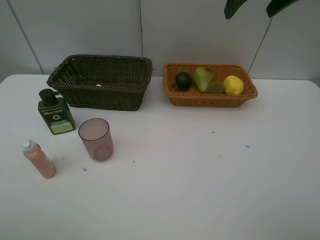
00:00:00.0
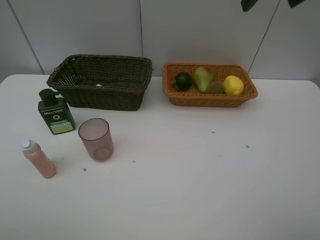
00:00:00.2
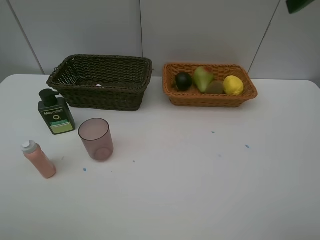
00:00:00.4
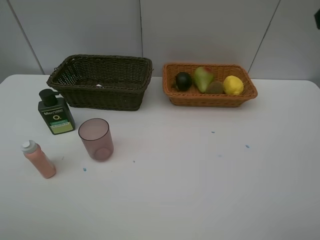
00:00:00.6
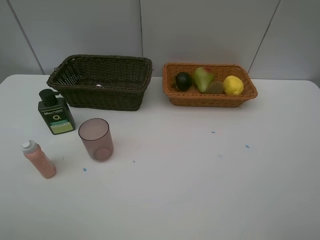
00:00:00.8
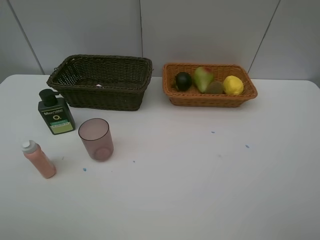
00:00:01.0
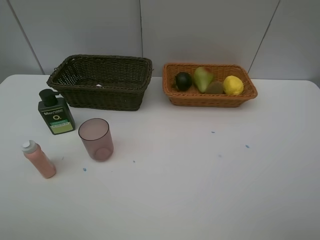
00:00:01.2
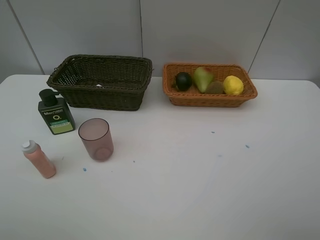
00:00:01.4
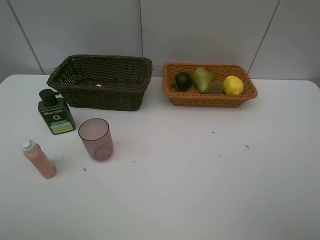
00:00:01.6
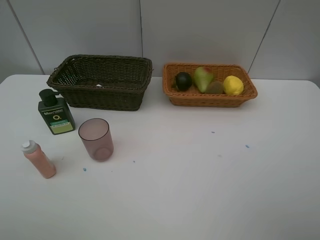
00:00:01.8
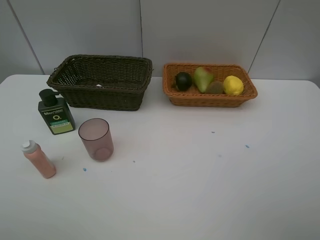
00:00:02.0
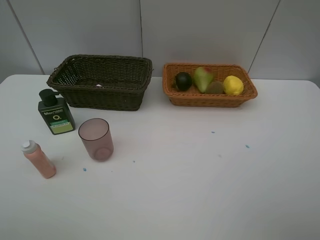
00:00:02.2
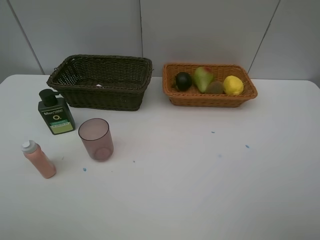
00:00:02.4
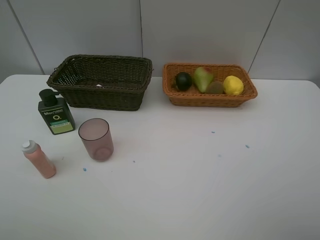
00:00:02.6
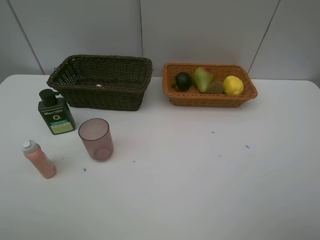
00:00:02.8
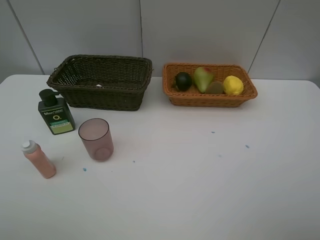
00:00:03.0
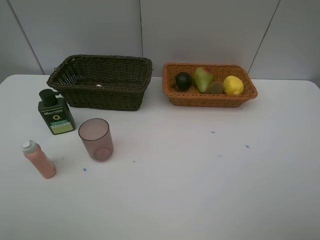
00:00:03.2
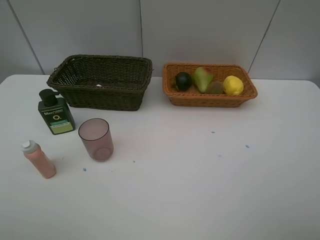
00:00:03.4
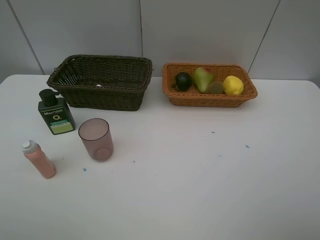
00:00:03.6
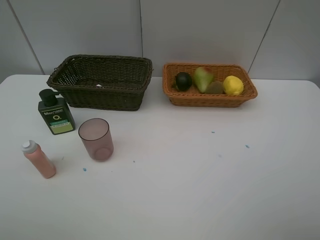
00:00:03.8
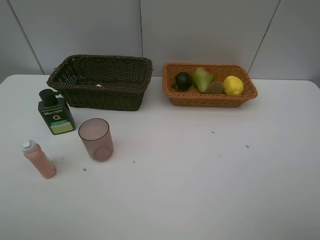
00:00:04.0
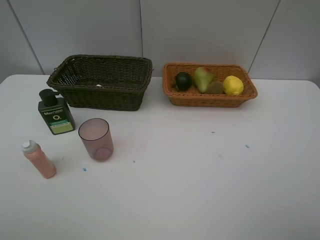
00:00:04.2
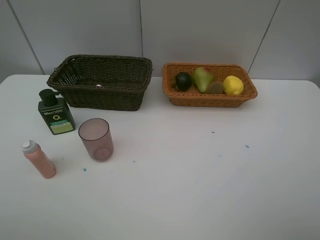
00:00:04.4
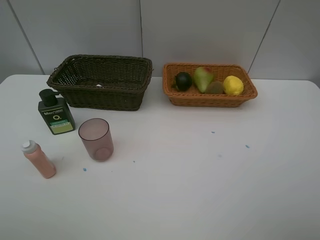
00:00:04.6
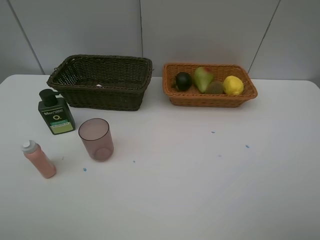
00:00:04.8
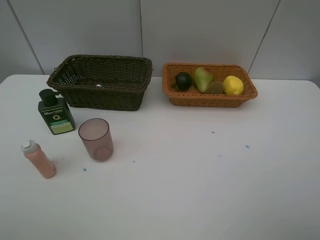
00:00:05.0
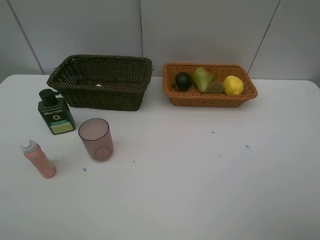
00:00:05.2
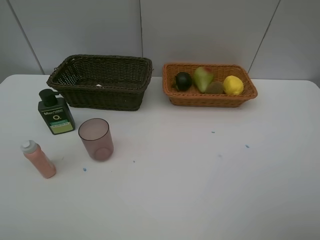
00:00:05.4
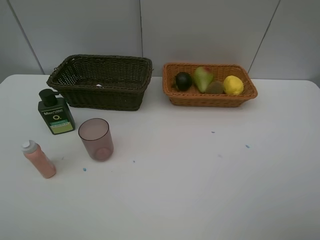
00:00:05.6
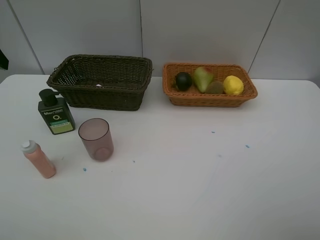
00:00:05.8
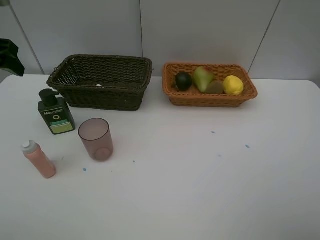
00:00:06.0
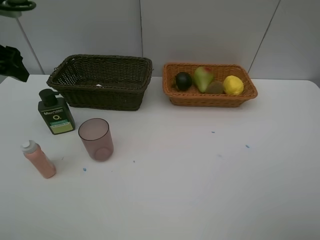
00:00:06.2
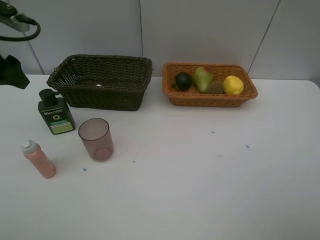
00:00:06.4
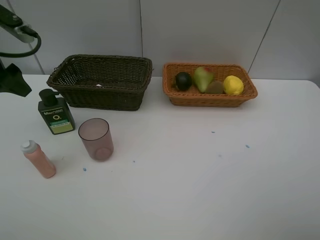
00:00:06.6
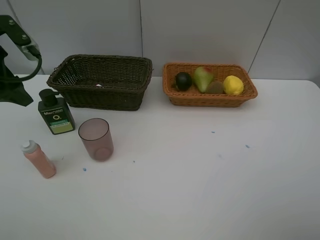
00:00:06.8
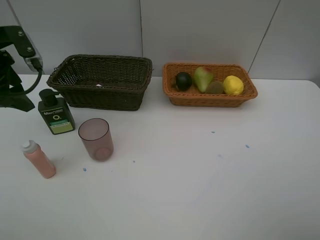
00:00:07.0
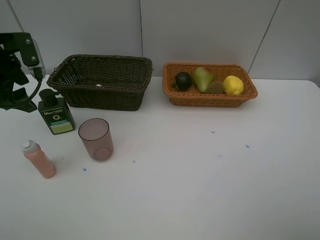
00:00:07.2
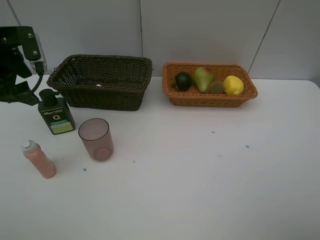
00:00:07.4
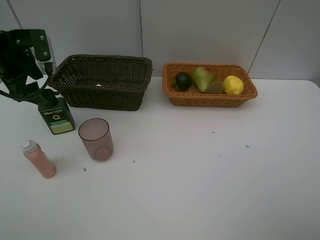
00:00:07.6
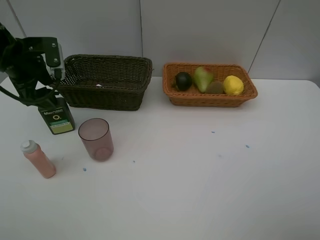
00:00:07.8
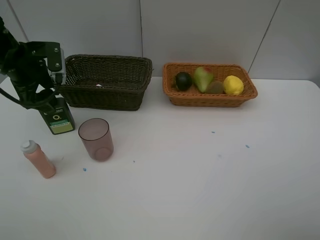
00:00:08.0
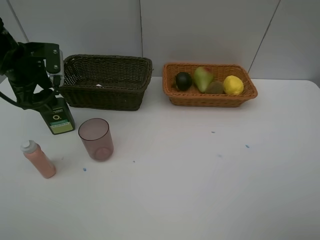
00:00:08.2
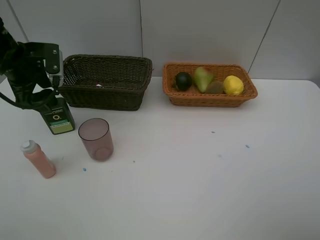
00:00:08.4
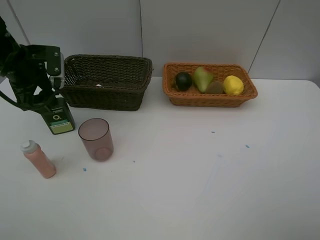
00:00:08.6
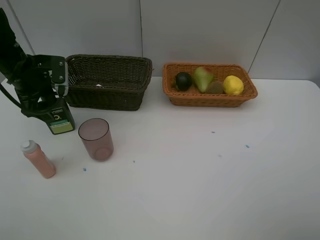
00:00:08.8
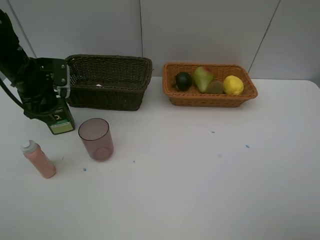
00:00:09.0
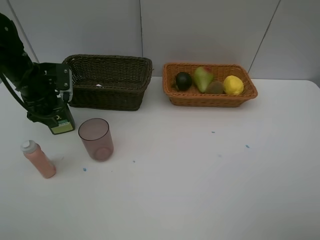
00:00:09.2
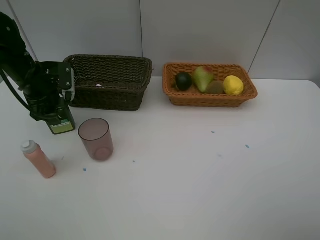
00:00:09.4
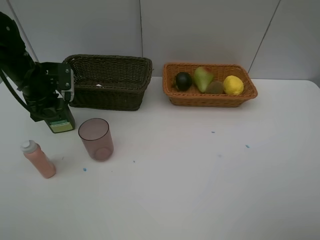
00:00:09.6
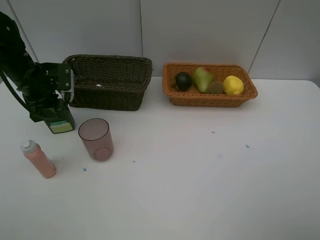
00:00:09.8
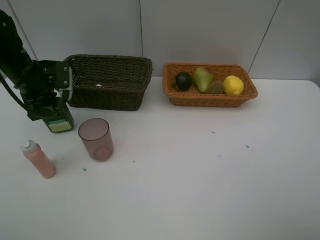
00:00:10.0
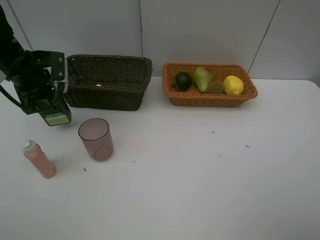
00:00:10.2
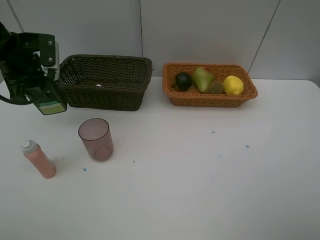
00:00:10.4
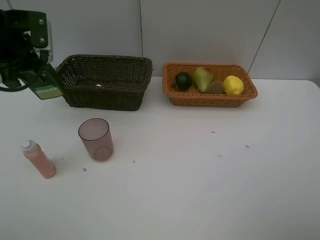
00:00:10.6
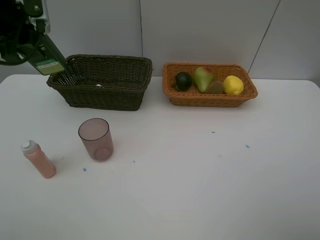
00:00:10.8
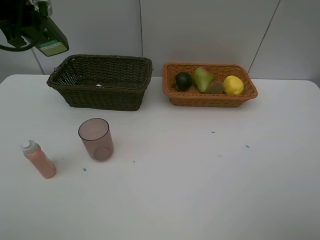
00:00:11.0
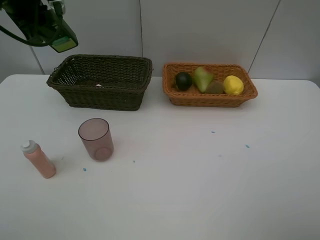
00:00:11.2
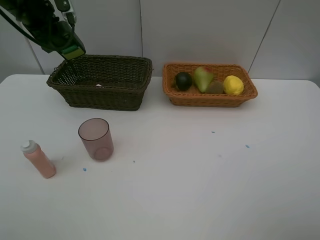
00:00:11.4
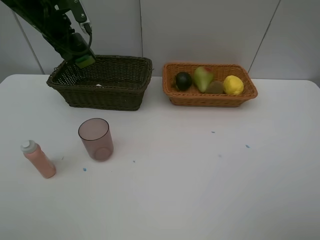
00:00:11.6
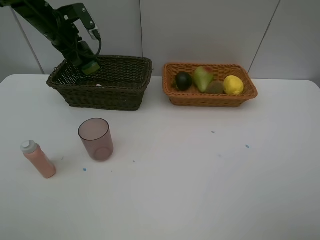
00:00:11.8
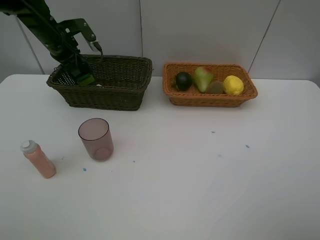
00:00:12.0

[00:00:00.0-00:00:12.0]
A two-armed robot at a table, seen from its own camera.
Task of the whole recording: Place multiple objects separately in different baskets.
Step, 00:00:00.0 to 00:00:10.2: Pick up the hard facial cleanser with left gripper.
00:00:00.0 to 00:00:01.6: The right gripper shifts some 30 cm backward.
00:00:03.0 to 00:00:04.4: The two grippers keep their place.
00:00:04.4 to 00:00:06.0: The left gripper goes approximately 30 cm forward.
00:00:06.0 to 00:00:07.6: The left gripper goes some 10 cm downward and forward.
00:00:07.6 to 00:00:09.0: The left gripper shifts approximately 5 cm downward.
00:00:09.0 to 00:00:10.4: The left gripper travels upward by approximately 5 cm, and closes its fingers.
00:00:10.4 to 00:00:12.0: The left gripper is displaced forward by some 15 cm.

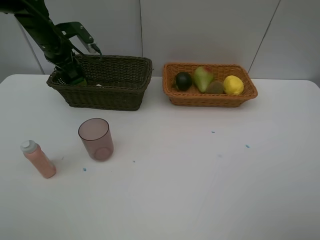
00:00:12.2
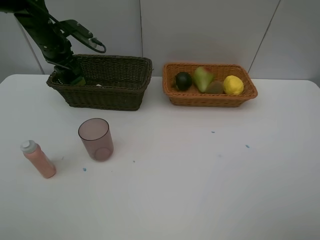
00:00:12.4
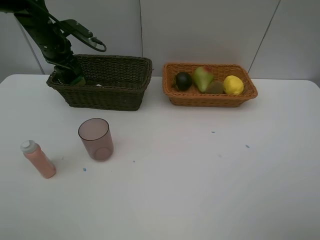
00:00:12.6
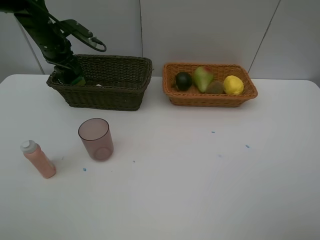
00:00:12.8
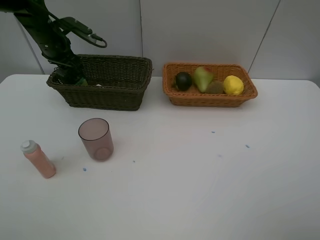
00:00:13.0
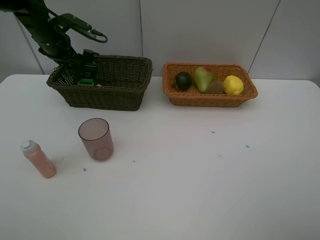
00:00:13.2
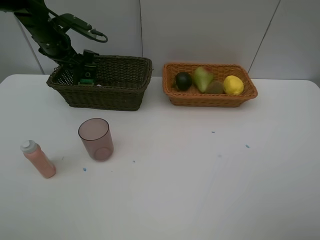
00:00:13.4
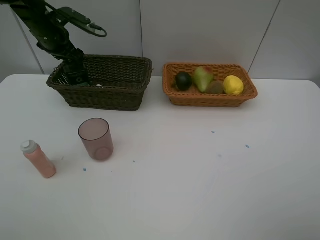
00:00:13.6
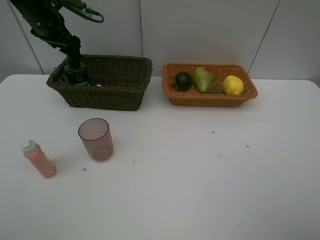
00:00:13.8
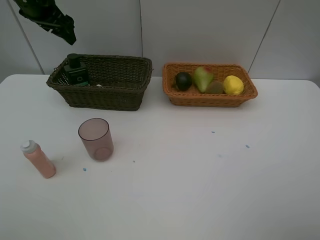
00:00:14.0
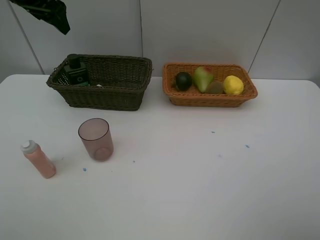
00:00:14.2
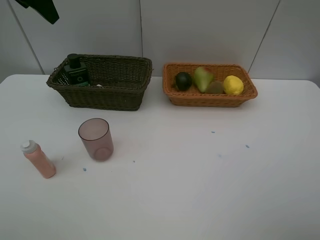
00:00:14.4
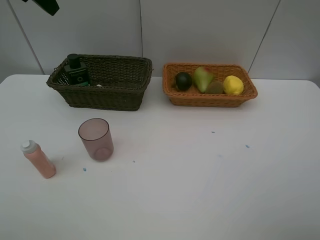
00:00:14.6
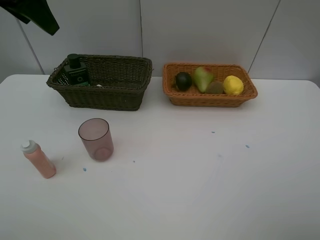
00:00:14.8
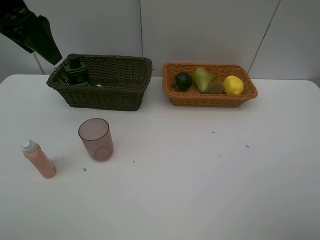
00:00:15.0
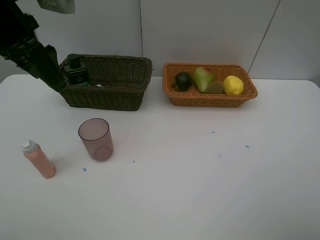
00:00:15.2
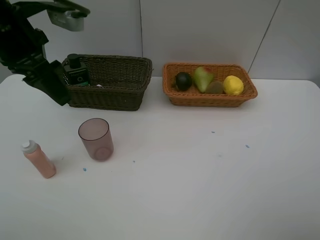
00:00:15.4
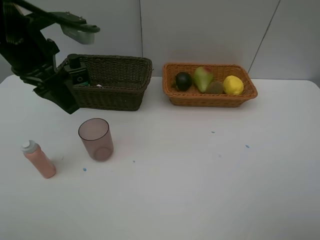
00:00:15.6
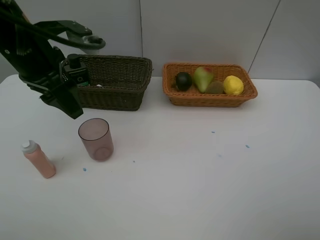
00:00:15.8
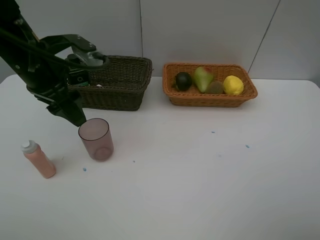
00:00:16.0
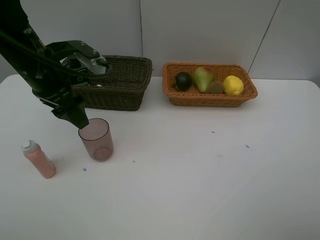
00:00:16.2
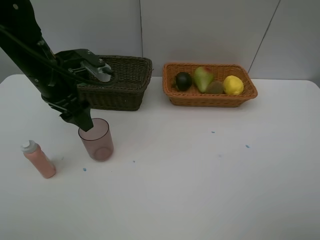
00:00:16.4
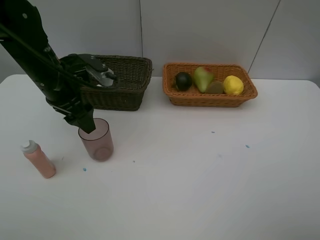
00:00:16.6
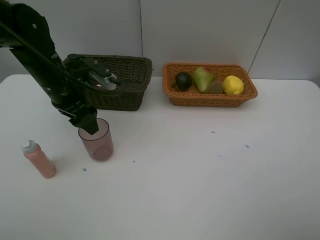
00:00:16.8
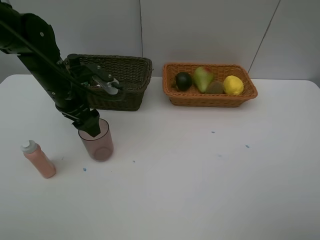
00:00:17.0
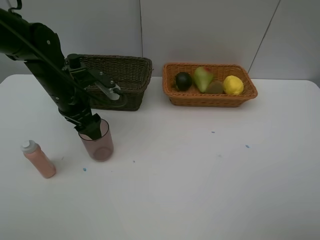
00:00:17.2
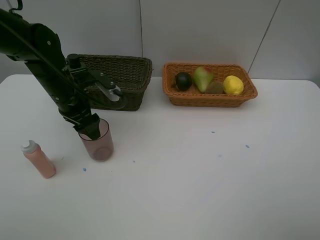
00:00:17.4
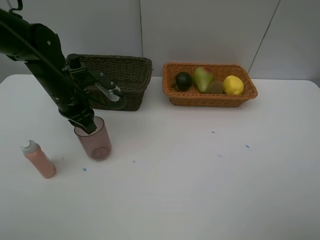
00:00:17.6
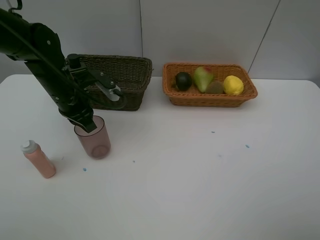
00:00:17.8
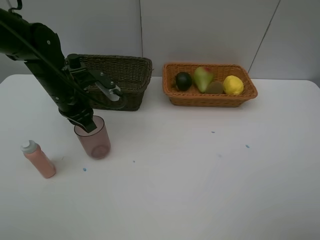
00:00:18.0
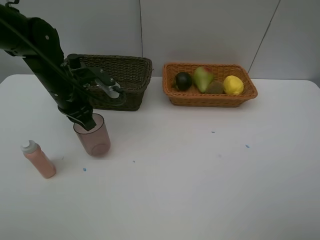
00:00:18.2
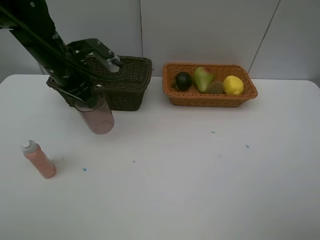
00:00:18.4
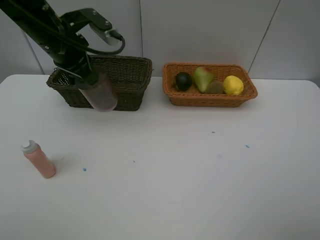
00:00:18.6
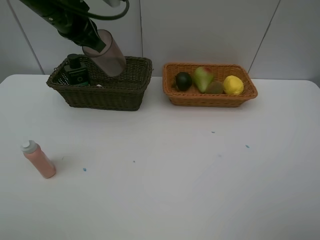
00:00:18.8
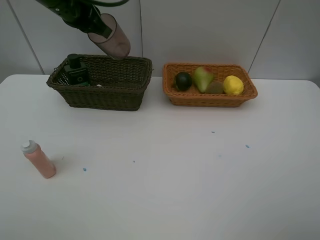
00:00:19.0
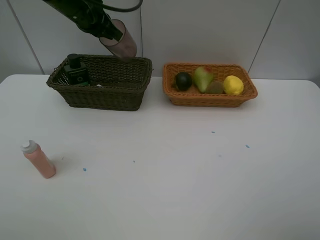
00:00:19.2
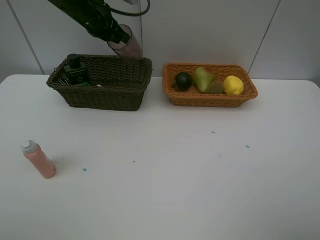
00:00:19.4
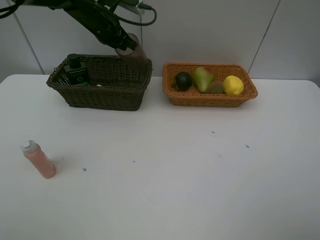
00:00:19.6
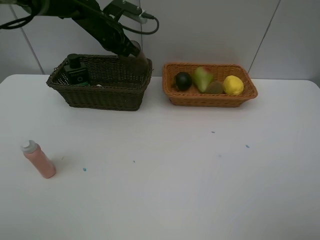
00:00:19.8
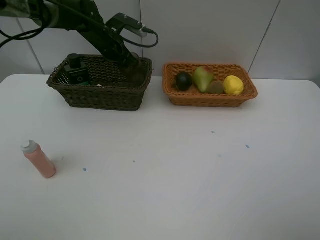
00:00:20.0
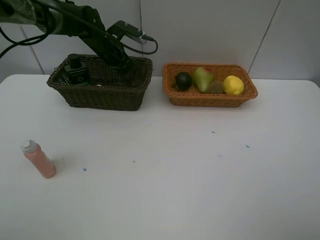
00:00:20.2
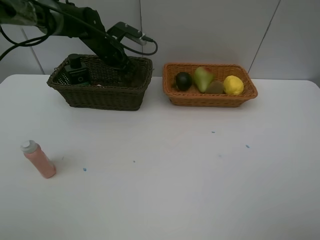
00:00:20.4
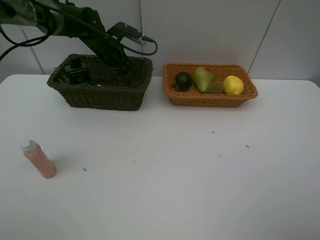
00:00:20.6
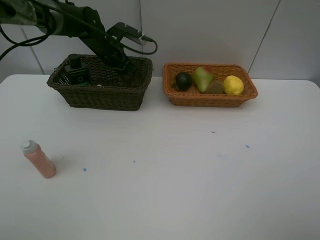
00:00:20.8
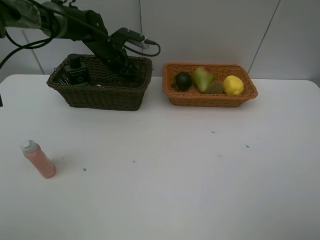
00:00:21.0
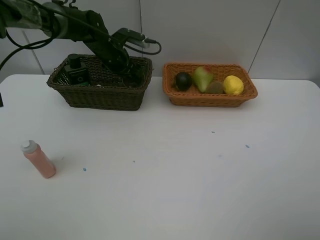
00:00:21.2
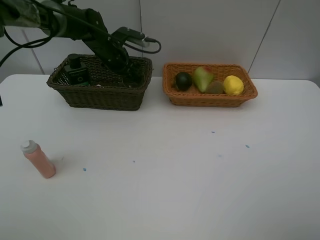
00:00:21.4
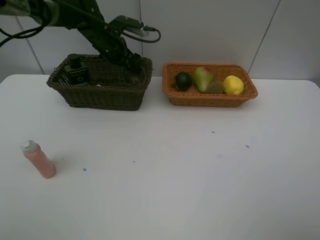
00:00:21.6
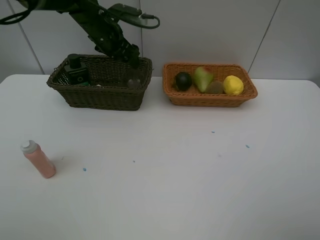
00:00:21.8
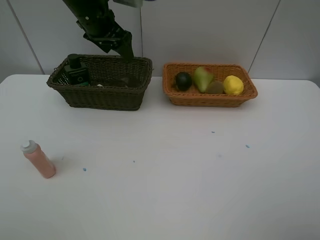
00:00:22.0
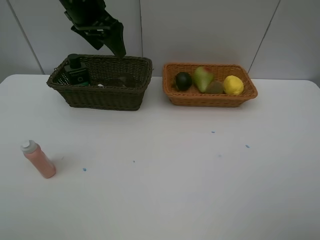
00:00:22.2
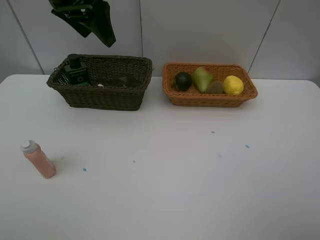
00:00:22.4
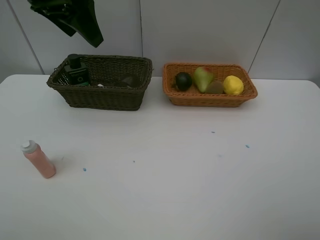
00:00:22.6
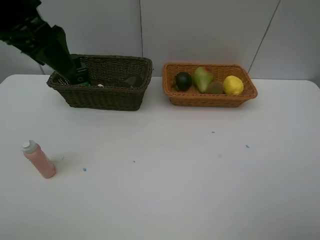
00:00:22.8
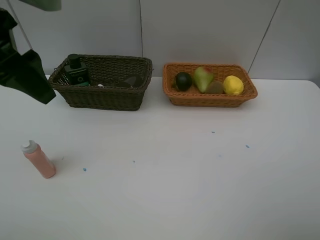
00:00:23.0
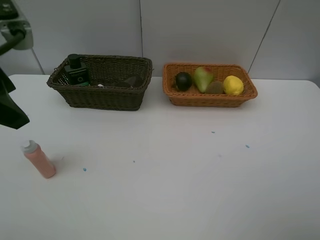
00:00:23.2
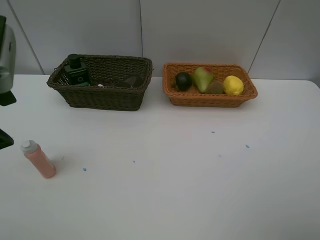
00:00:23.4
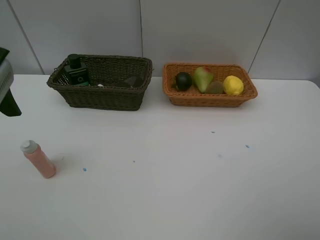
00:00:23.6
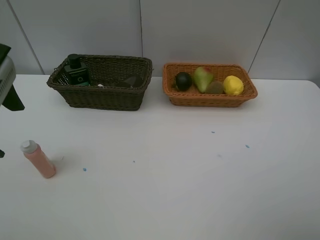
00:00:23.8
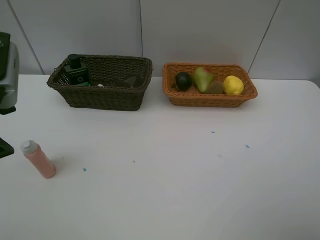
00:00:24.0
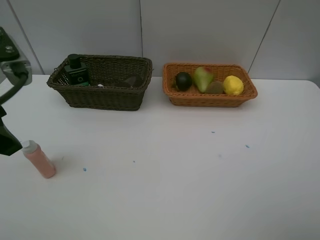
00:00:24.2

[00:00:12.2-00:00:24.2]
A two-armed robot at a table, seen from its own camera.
Task of the whole recording: Place multiple objects separately in different baskets.
Step, 00:00:14.0 to 00:00:18.2: Pick up the red cup with left gripper.
Step, 00:00:18.4 to 00:00:21.8: Place the red cup in the dark basket with left gripper.
00:00:12.2 to 00:00:13.8: The left gripper goes roughly 5 cm upward, and opens its fingers.
00:00:13.8 to 00:00:15.2: The left gripper travels backward by roughly 15 cm.
00:00:15.2 to 00:00:16.6: The left gripper shifts approximately 10 cm downward.
00:00:16.6 to 00:00:18.2: The left gripper closes up.
00:00:18.2 to 00:00:19.8: The left gripper moves forward, roughly 15 cm.
00:00:19.8 to 00:00:21.2: The left gripper shifts some 5 cm downward, and opens.
00:00:21.2 to 00:00:22.6: The left gripper goes about 25 cm upward and backward.
00:00:22.6 to 00:00:24.2: The left gripper heads backward, to the left and downward, covering approximately 15 cm.
